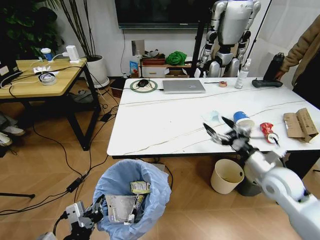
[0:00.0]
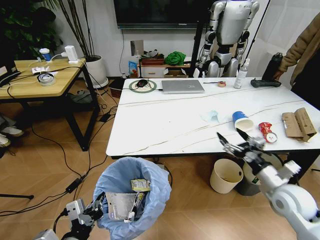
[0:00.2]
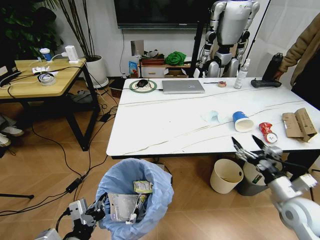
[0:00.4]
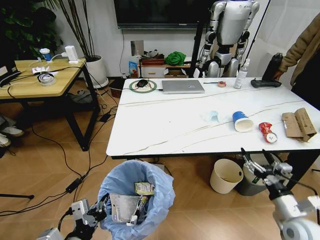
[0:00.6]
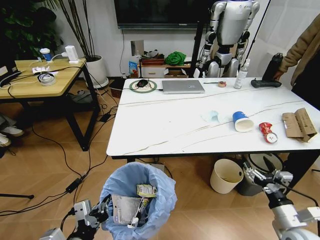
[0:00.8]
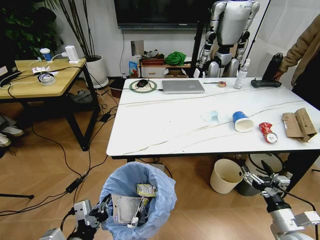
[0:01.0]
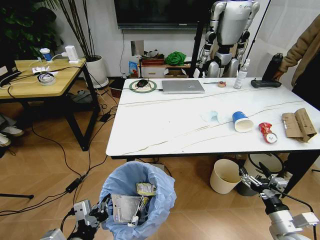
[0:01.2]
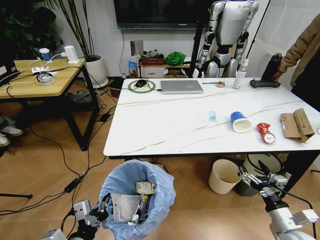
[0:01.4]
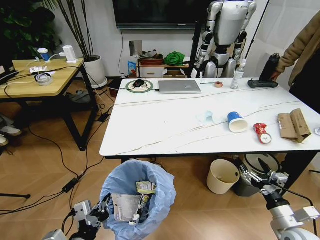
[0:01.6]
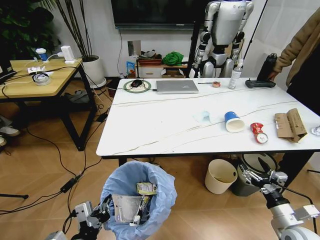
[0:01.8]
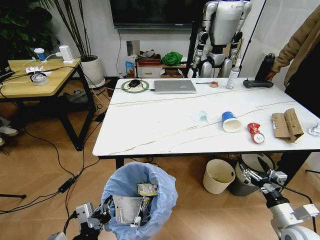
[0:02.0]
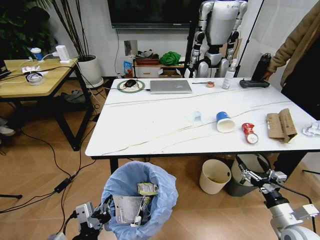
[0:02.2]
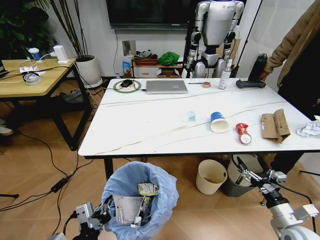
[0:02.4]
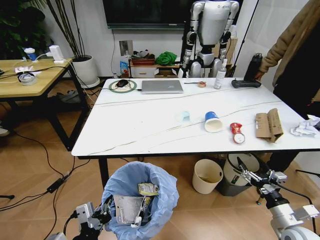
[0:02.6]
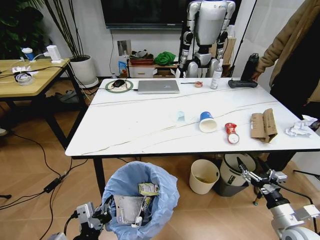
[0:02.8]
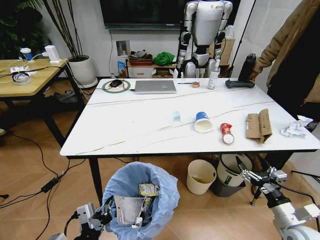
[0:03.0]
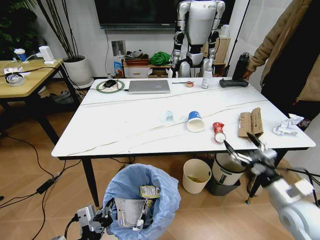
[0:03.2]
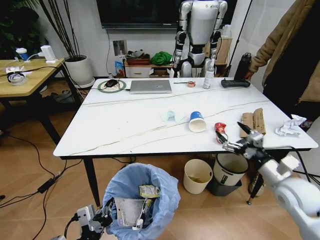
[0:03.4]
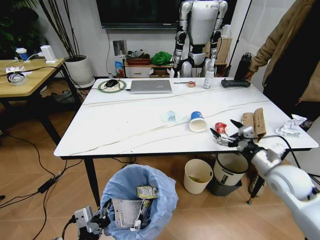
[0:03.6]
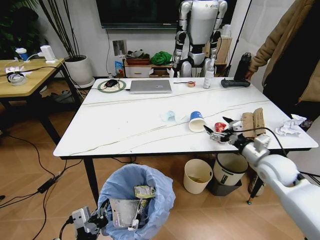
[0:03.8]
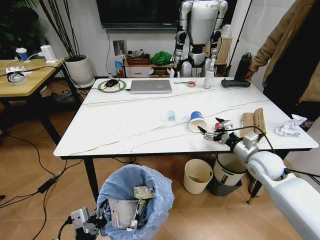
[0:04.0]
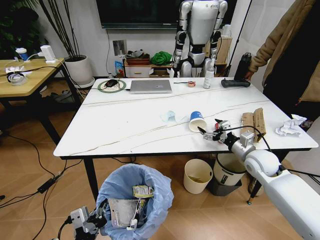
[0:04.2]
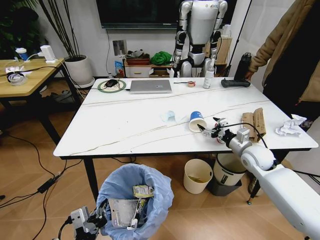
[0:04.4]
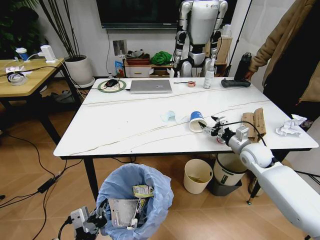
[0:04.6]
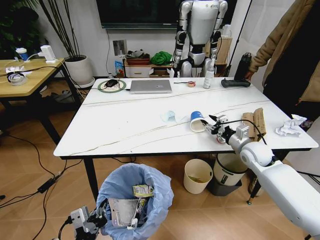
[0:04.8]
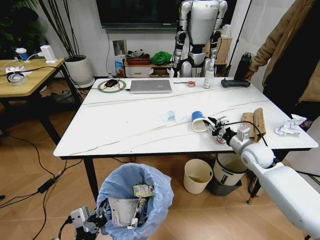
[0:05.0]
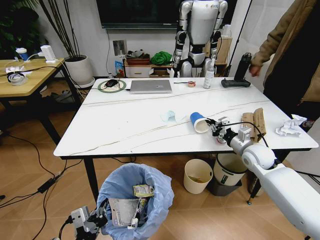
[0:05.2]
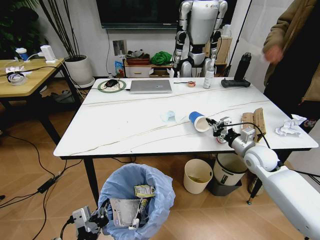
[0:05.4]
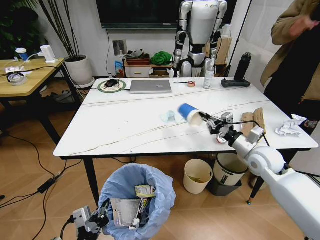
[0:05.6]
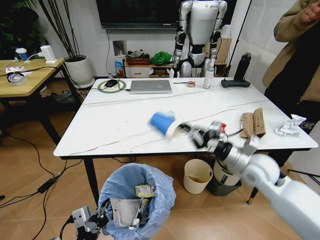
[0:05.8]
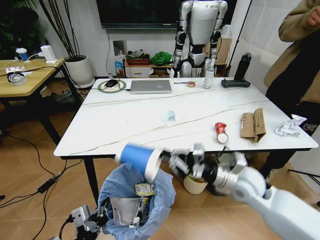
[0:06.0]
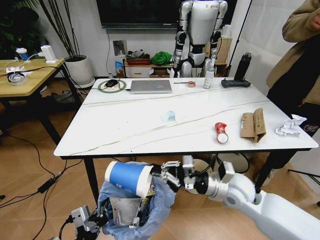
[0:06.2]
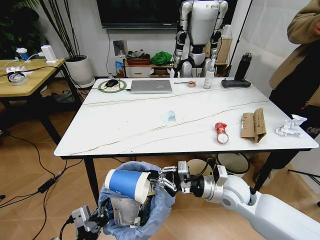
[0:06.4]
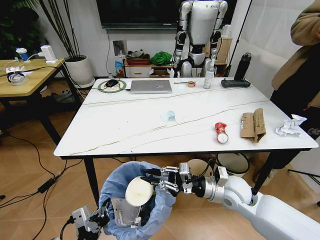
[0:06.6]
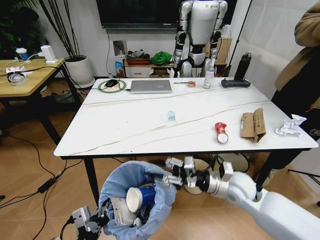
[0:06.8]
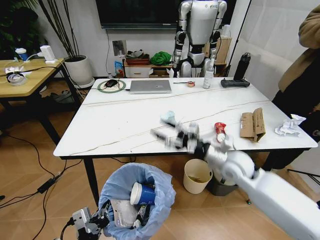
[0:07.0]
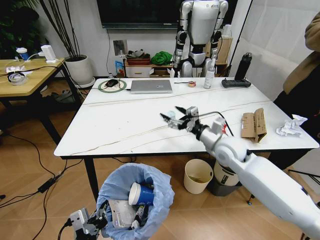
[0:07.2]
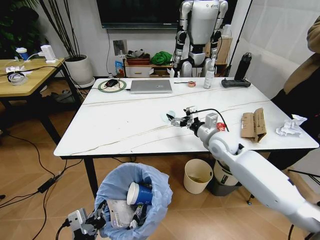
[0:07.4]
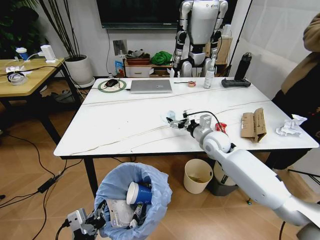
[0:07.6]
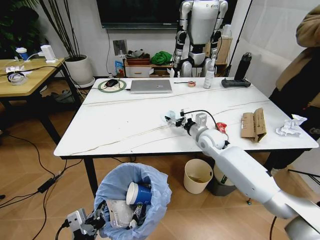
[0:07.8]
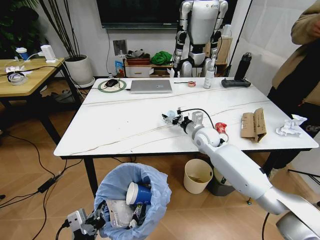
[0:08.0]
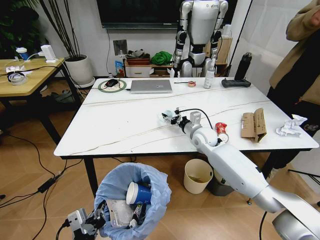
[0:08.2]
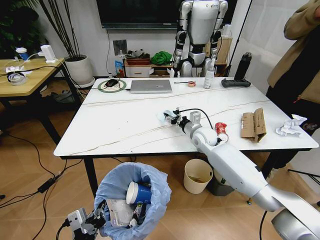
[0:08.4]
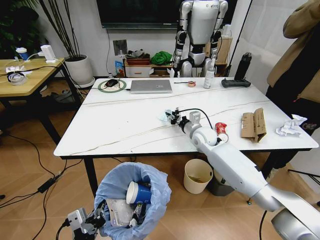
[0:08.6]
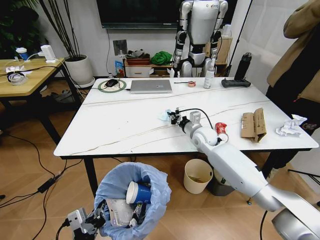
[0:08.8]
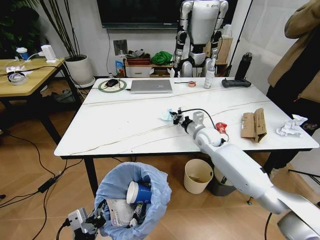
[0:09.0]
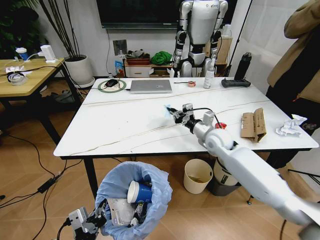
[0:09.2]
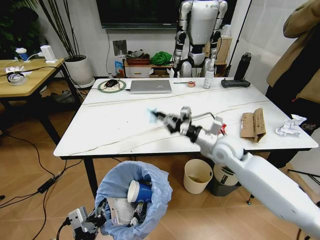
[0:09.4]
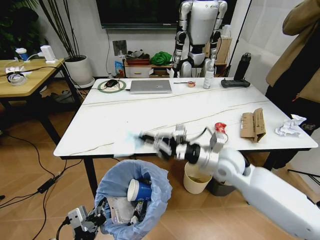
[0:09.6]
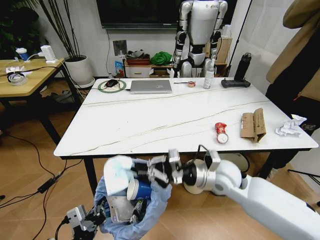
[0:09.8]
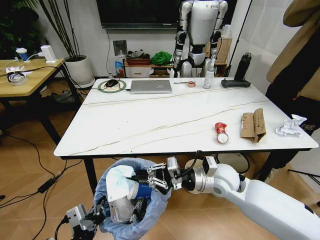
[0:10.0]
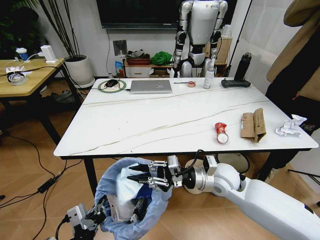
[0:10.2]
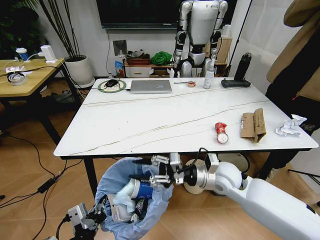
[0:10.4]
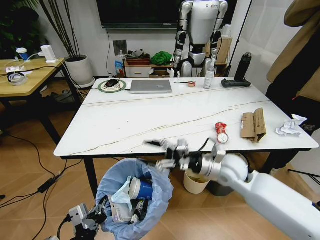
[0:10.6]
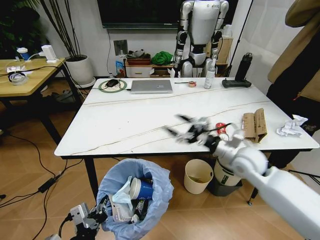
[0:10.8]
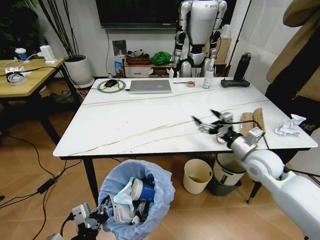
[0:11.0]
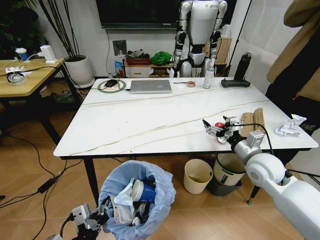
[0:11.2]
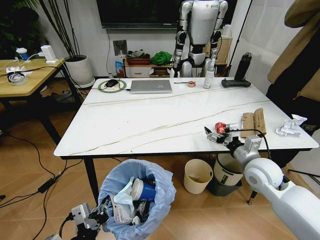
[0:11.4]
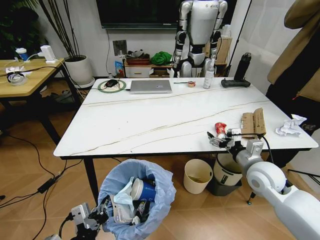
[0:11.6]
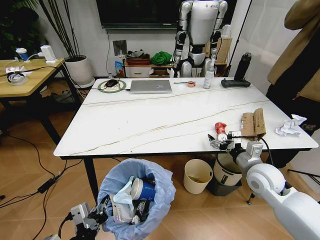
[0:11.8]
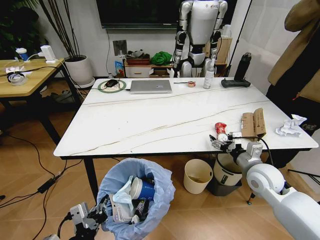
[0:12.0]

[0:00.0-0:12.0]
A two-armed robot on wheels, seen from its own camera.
Task of the whole recording: Pick up the trash bin and place the trash from the table into it.
0:00.0 to 0:01.6: The right gripper is displaced backward and downward by some 15 cm.
0:03.0 to 0:04.4: The right gripper travels forward by roughly 25 cm.
0:04.4 to 0:06.0: The right gripper shifts some 15 cm backward and to the left, and closes up.
0:06.0 to 0:07.6: The right gripper moves forward, about 15 cm, and opens up.
0:07.6 to 0:09.0: The right gripper closes.
0:09.0 to 0:10.4: The right gripper heads backward, covering approximately 15 cm, and opens its fingers.
0:10.4 to 0:12.0: The right gripper heads to the right, covering roughly 15 cm, and opens up.

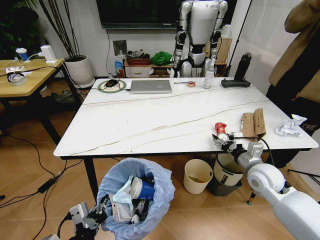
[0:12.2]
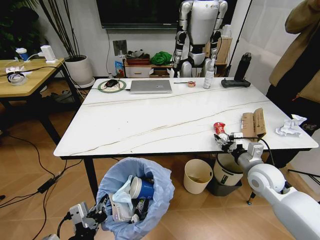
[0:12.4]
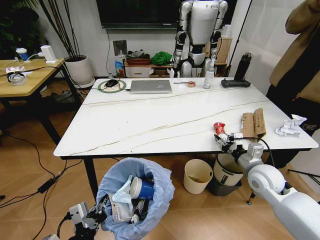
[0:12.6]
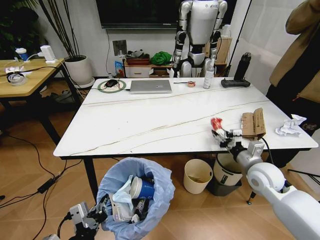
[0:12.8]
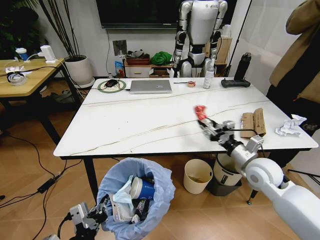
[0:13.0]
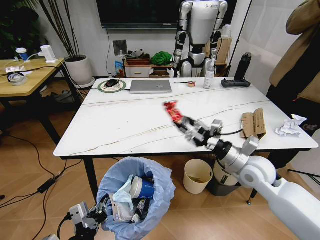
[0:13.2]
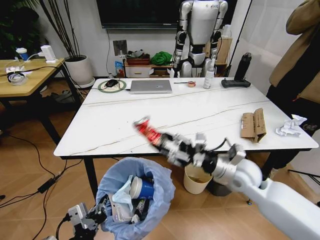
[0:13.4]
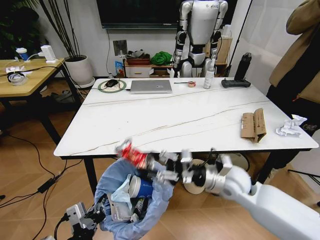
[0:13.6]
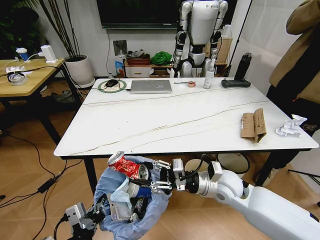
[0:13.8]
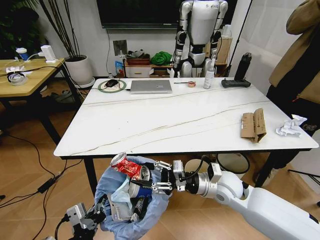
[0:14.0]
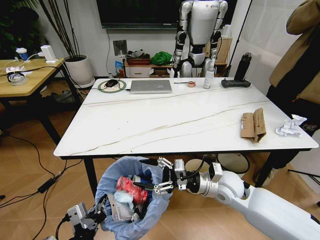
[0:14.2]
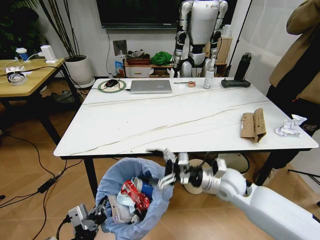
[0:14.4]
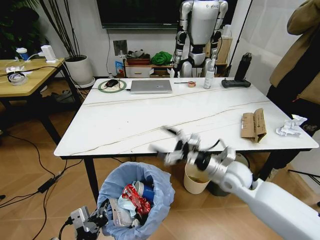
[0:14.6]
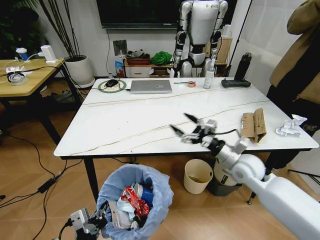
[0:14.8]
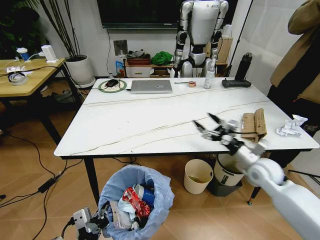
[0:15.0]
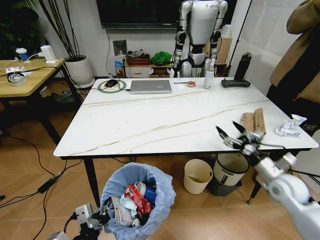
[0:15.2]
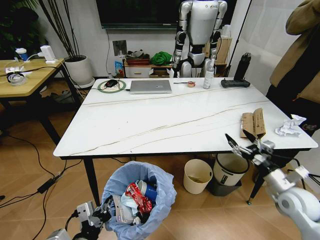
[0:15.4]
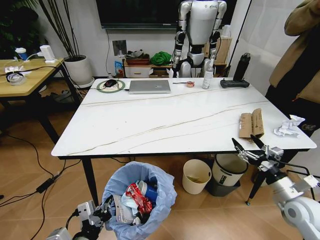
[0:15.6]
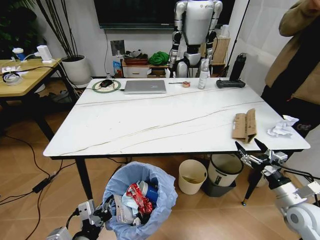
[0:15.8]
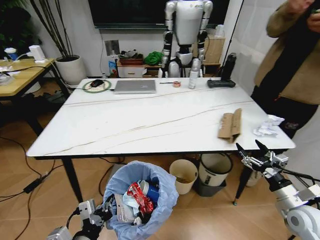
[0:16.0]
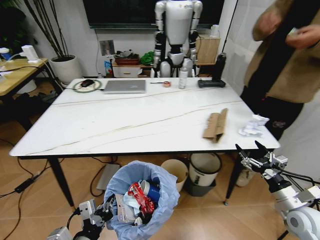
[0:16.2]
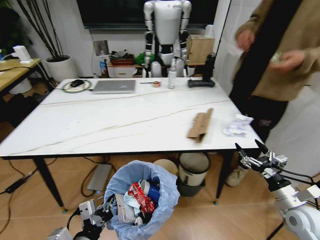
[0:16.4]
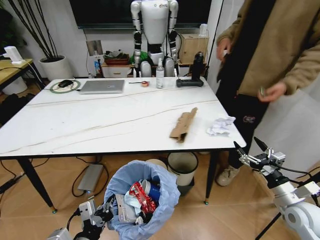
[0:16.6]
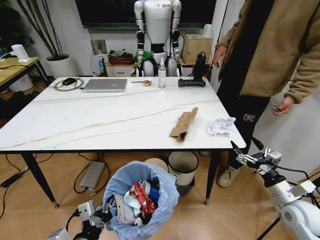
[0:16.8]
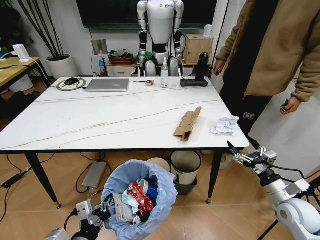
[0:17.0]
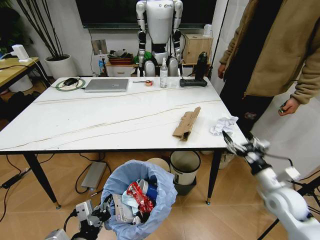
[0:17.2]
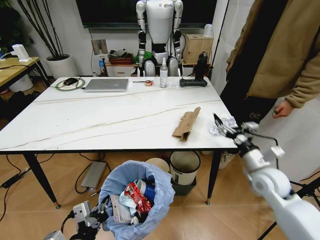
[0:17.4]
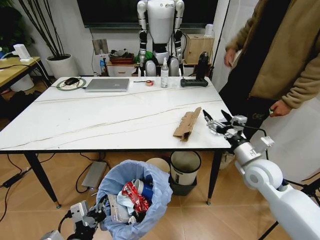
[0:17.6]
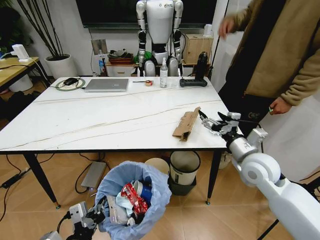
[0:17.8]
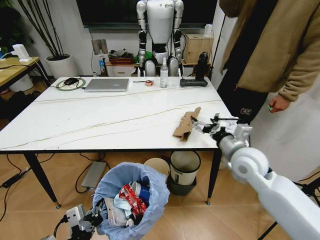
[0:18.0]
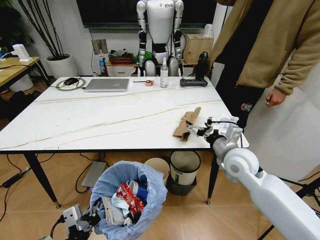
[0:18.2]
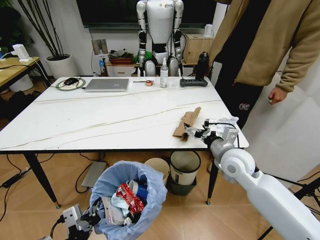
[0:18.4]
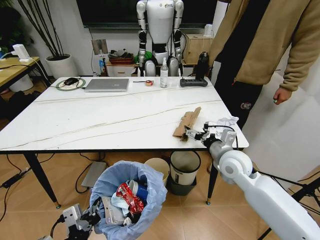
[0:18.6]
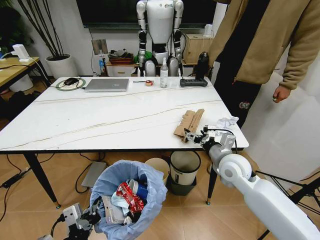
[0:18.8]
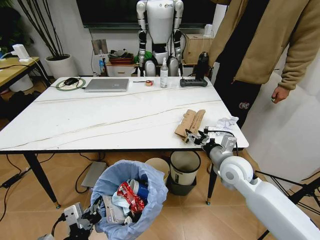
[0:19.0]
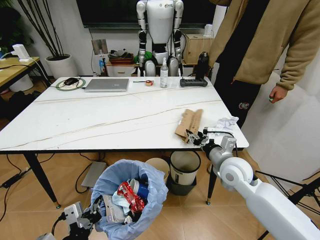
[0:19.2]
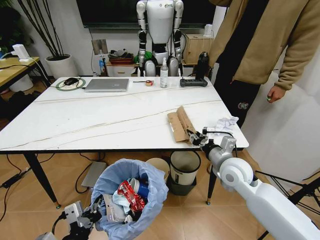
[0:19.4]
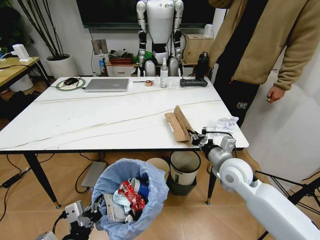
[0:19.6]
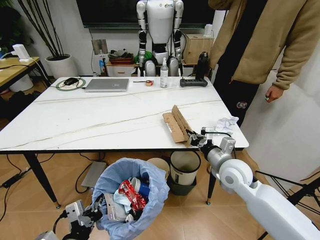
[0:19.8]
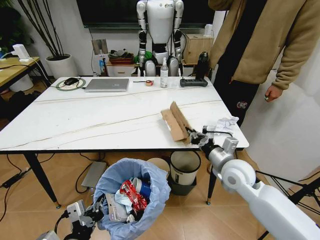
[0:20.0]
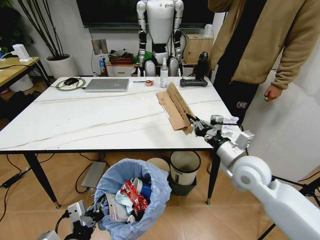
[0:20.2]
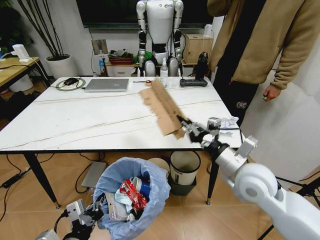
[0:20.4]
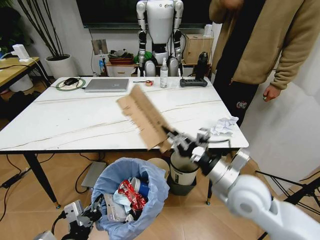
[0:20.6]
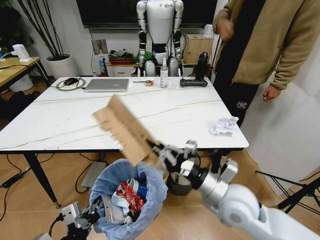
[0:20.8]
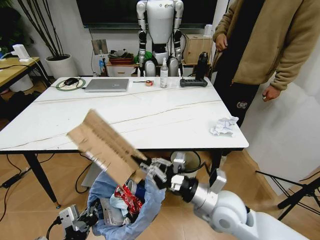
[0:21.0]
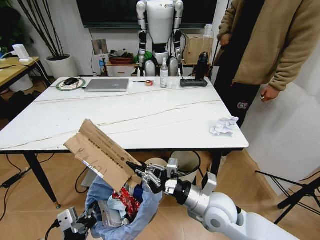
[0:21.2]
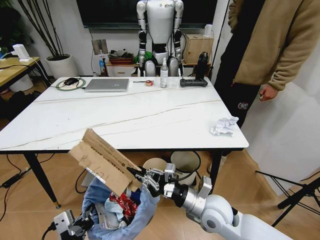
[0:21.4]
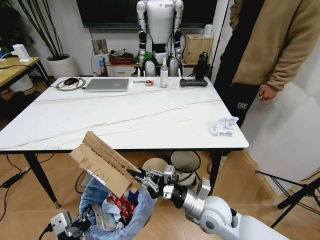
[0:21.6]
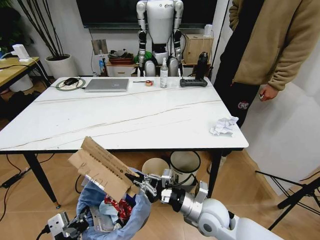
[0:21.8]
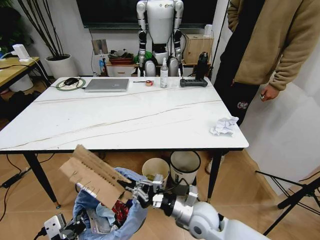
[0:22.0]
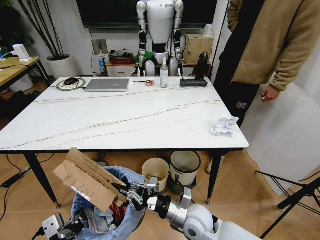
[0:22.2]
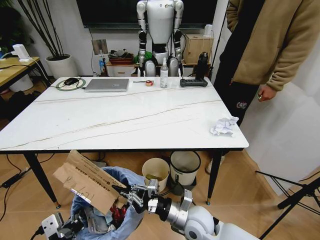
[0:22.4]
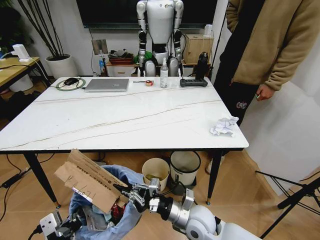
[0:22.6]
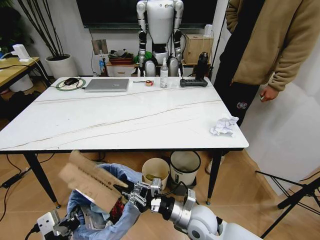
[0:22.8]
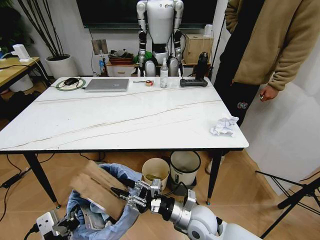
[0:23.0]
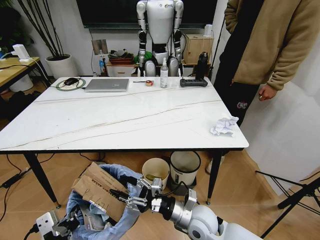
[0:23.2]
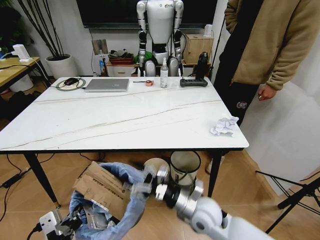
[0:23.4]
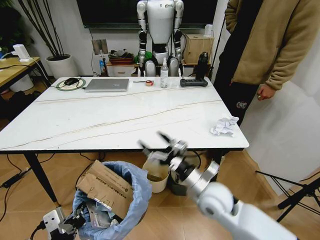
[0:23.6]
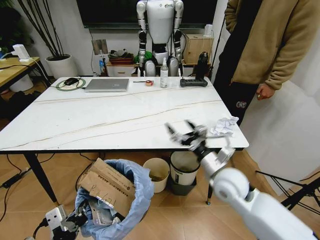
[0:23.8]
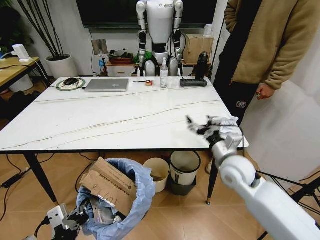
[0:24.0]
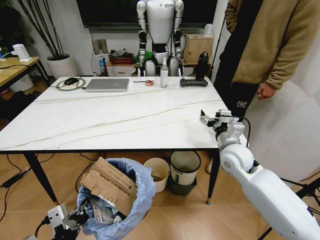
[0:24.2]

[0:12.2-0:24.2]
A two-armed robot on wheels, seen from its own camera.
Task of the whole recording: Pick up the trash bin and place the trash from the table into it.
0:12.2 to 0:13.8: The right gripper travels to the left by approximately 15 cm.
0:13.8 to 0:15.2: The right gripper goes about 20 cm to the right, and opens its fingers.
0:15.2 to 0:16.6: The right gripper moves backward, approximately 10 cm.
0:16.6 to 0:18.2: The right gripper shifts some 25 cm to the left, forward and upward.
0:18.2 to 0:19.8: The right gripper closes its fingers.
0:19.8 to 0:21.2: The right gripper heads backward and to the left, covering approximately 10 cm.
0:21.2 to 0:22.6: The right gripper moves downward, about 5 cm.
0:22.6 to 0:24.2: The right gripper moves forward, upward and to the right, about 25 cm, and opens.
